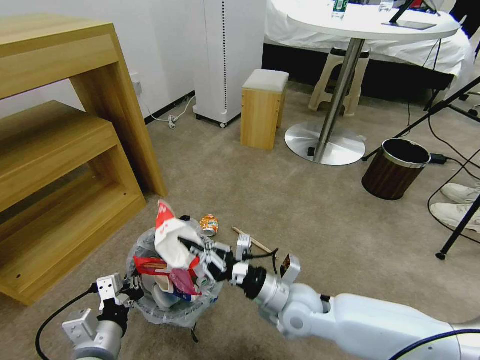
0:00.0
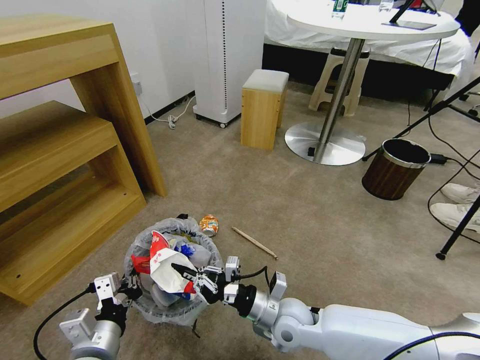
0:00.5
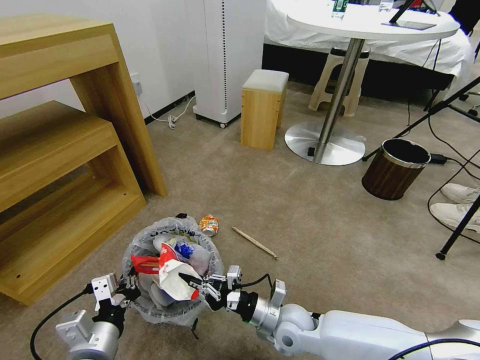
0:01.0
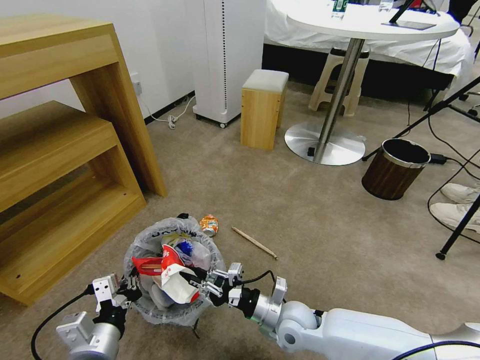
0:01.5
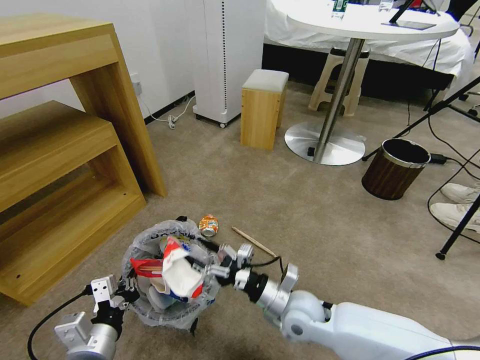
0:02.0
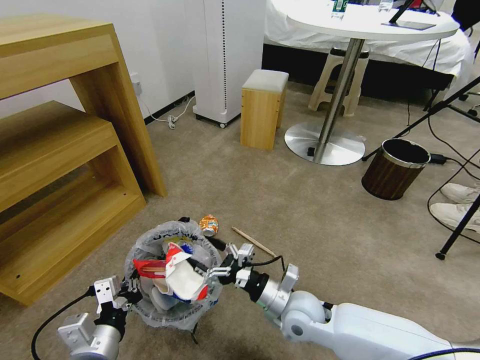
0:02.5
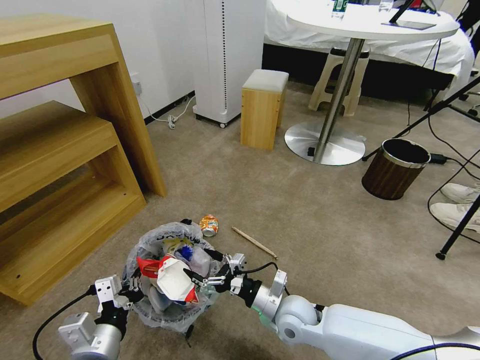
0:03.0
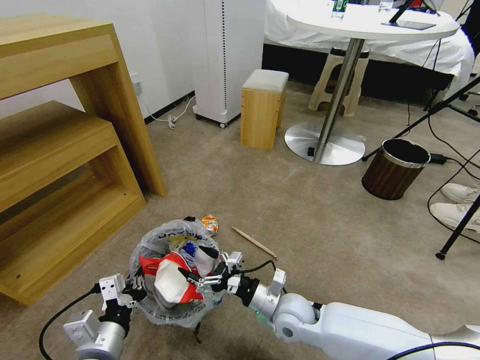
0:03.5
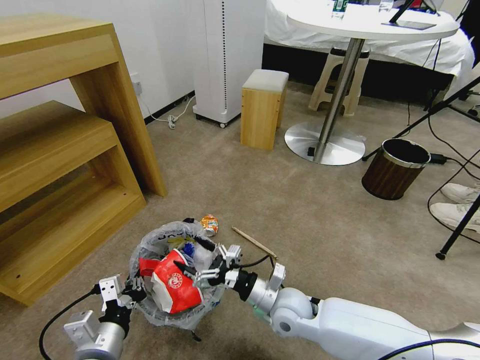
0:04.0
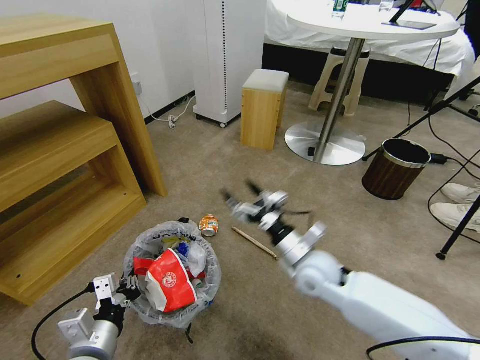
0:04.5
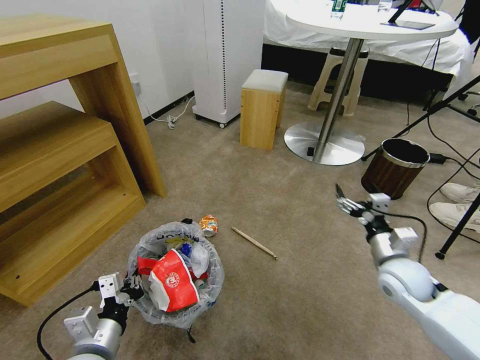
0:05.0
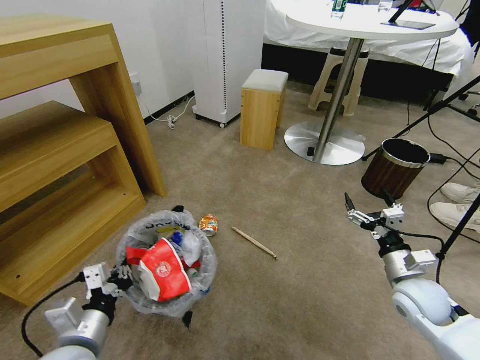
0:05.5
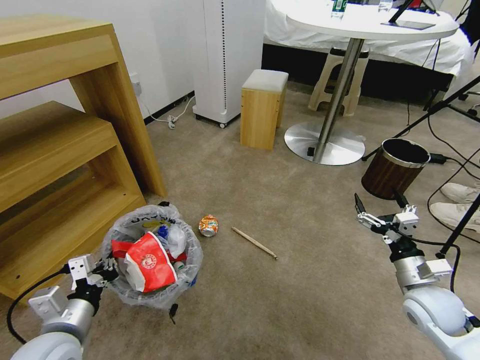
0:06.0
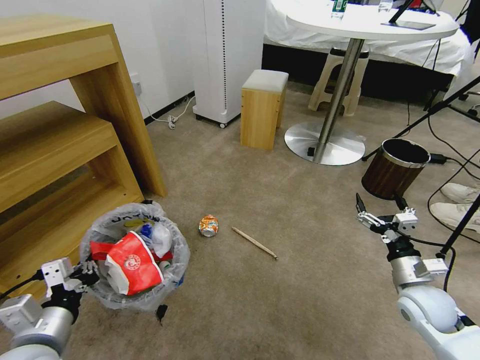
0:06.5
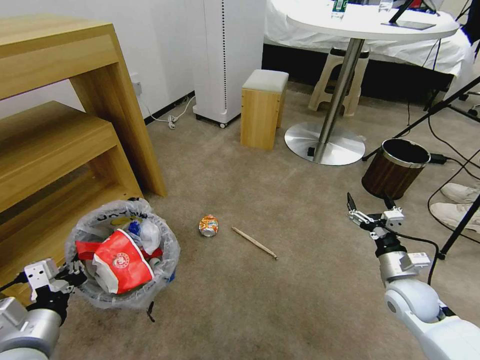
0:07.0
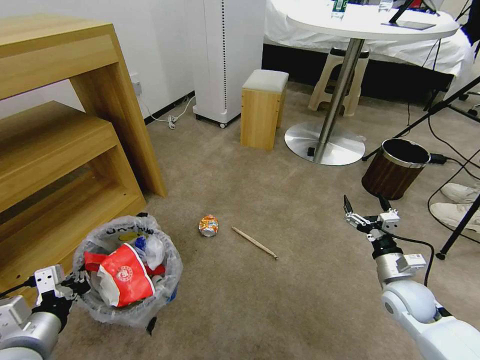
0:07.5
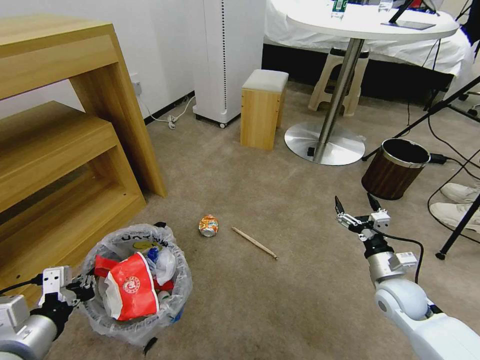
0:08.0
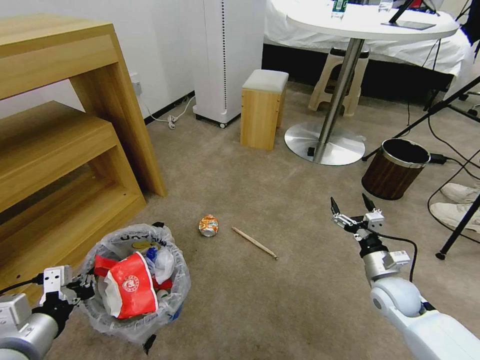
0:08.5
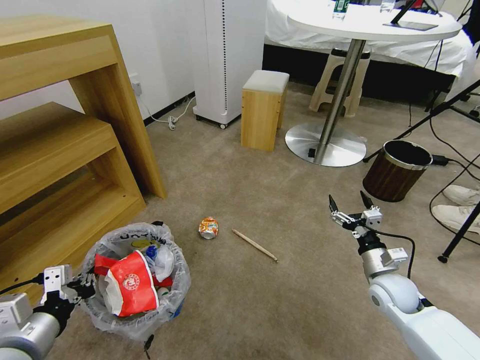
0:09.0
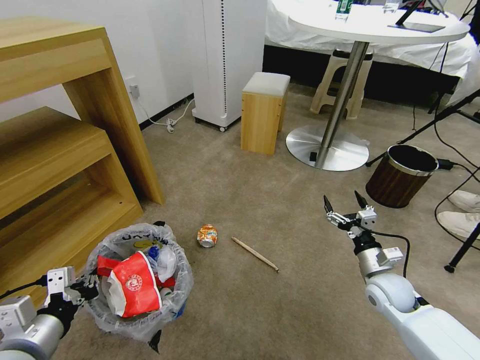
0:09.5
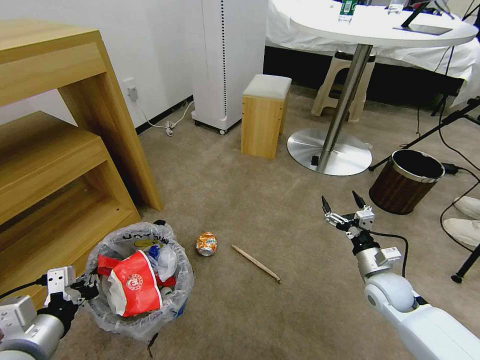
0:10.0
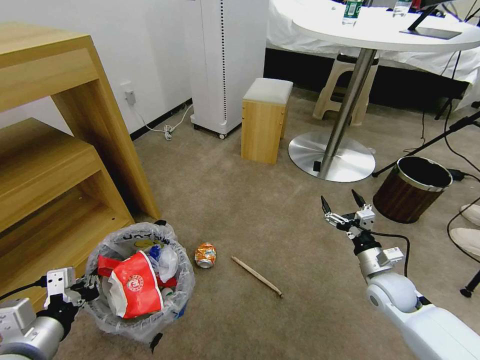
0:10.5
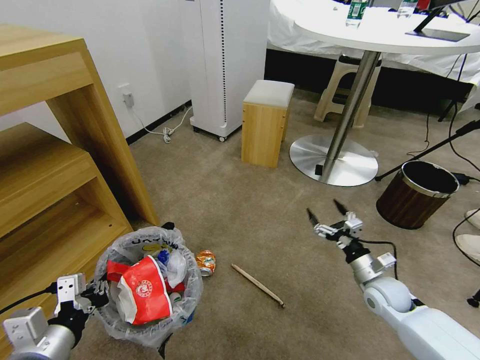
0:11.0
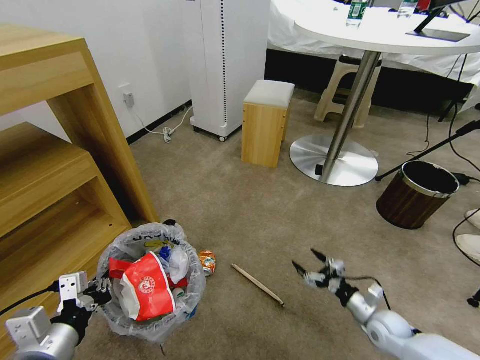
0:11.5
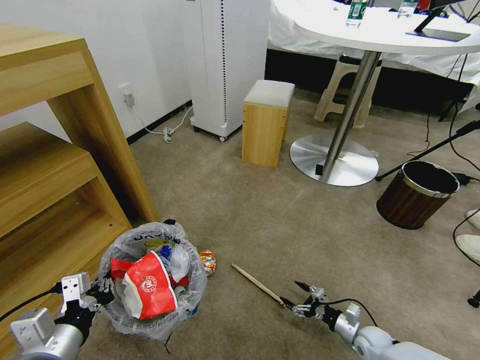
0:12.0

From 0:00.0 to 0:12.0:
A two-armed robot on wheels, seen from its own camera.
Task of the whole recording: Pick up the trash bin and place the garbage on the floor into it.
From 0:00.0 to 0:02.0: The right gripper opens.
From 0:02.0 to 0:04.0: The grippers stay close to where they were, moving slightly.
From 0:04.0 to 0:06.0: The right gripper heads to the right, covering approximately 30 cm. Meanwhile the left gripper is displaced to the left by some 5 cm.
From 0:06.0 to 0:08.0: The left gripper travels upward by approximately 5 cm; the right gripper changes place by roughly 5 cm.
From 0:10.0 to 0:12.0: The right gripper travels downward by about 20 cm.

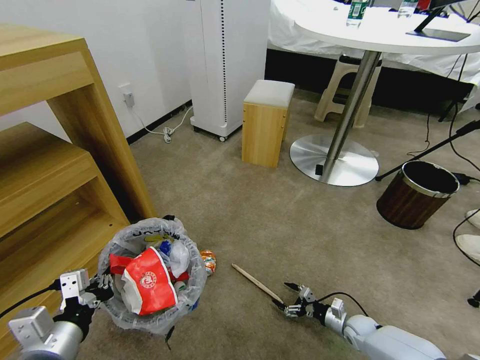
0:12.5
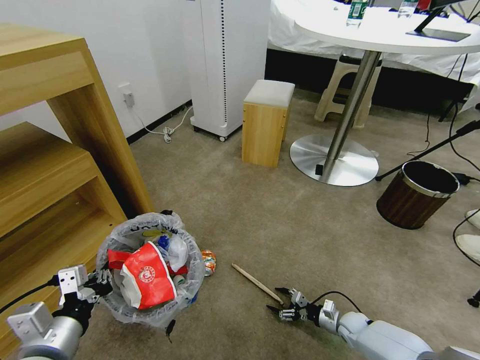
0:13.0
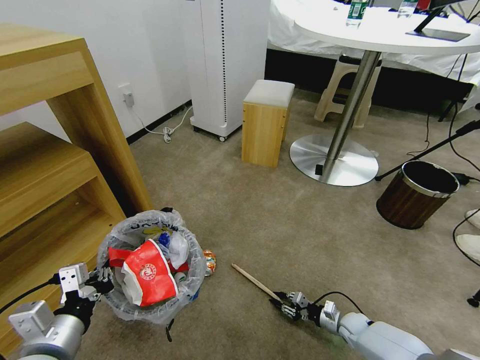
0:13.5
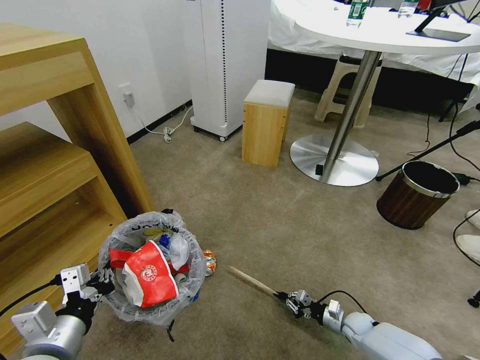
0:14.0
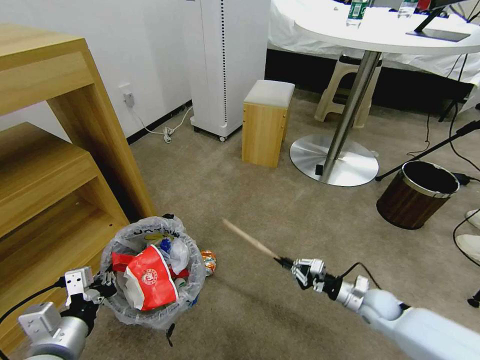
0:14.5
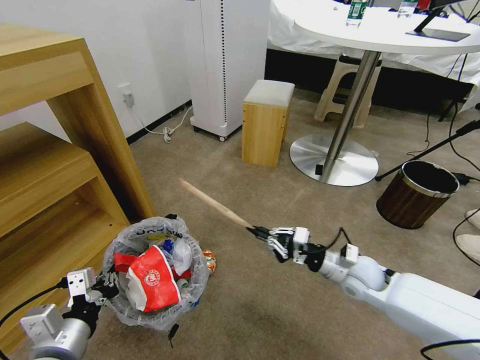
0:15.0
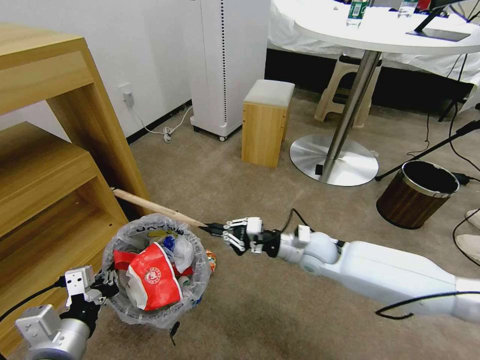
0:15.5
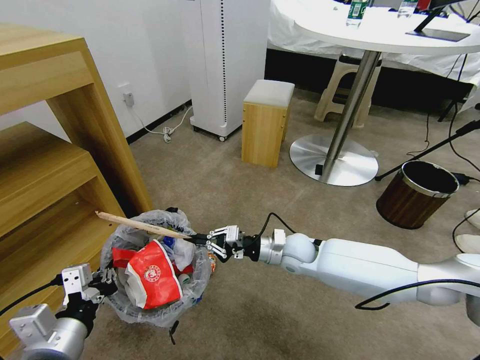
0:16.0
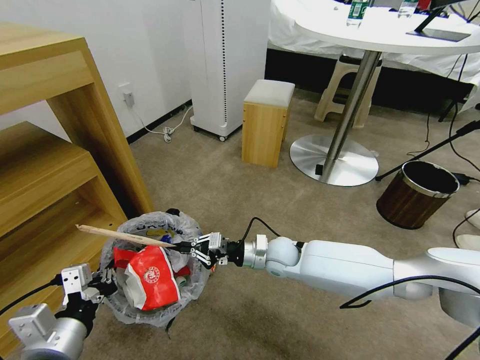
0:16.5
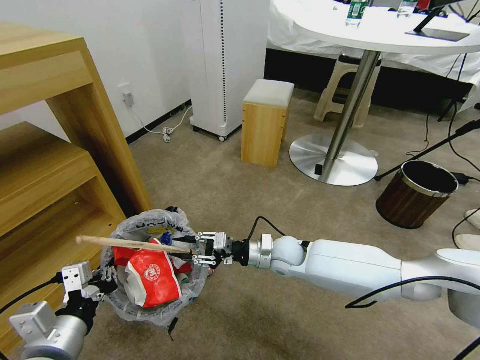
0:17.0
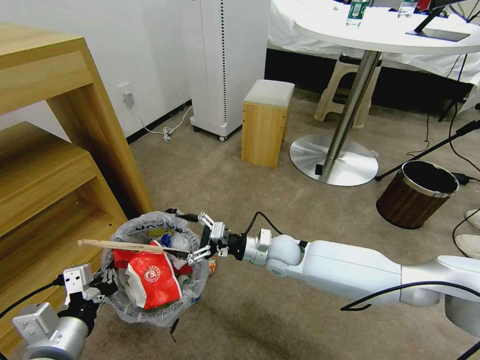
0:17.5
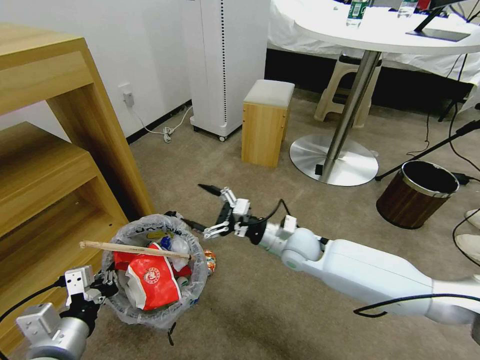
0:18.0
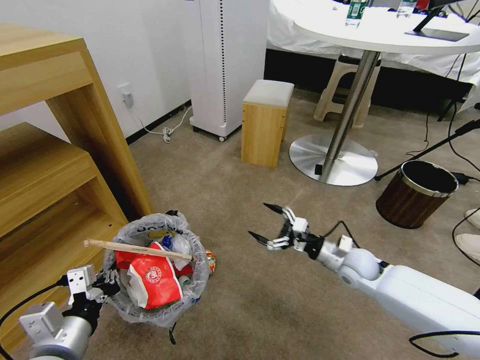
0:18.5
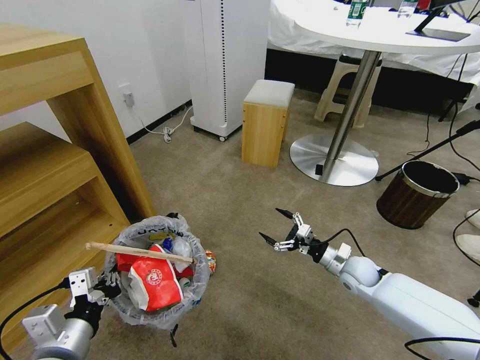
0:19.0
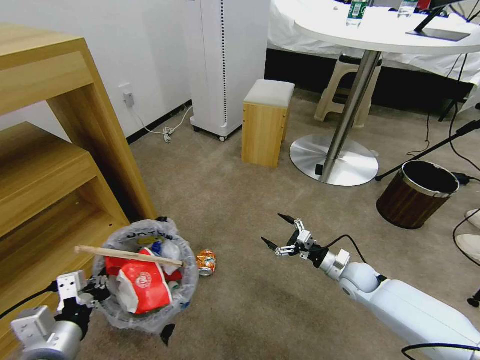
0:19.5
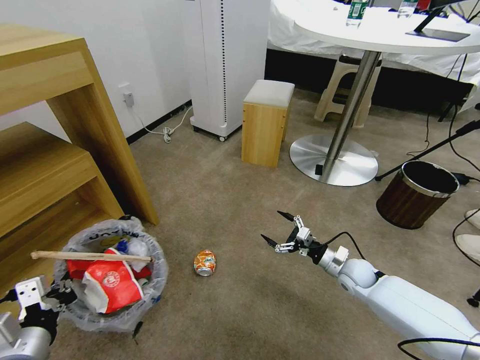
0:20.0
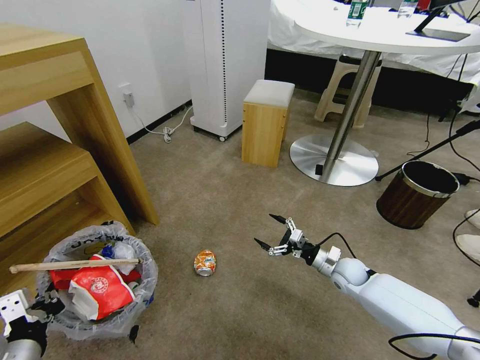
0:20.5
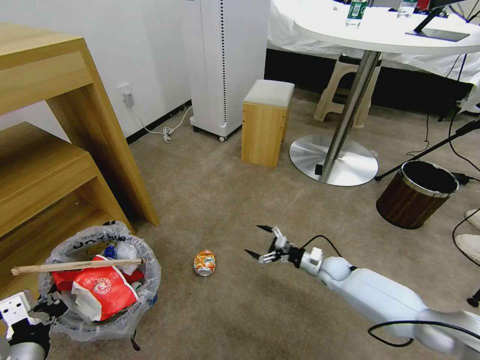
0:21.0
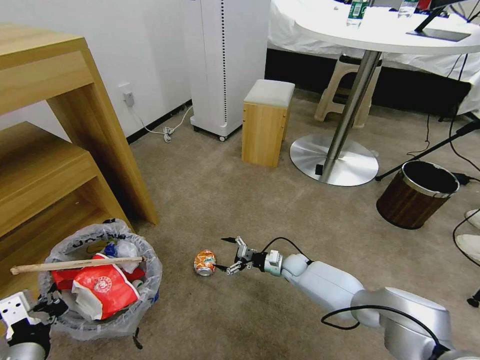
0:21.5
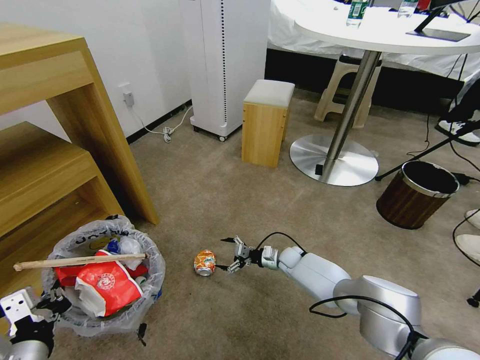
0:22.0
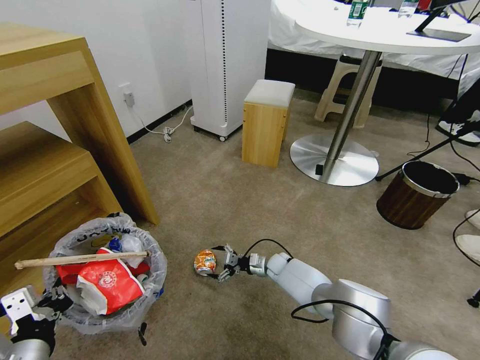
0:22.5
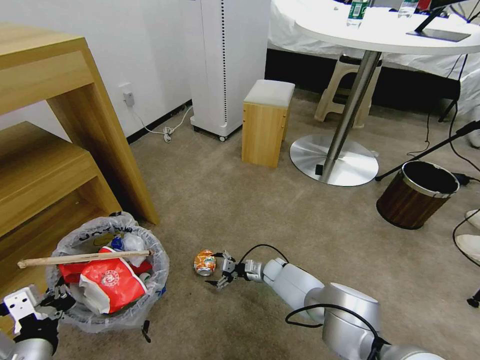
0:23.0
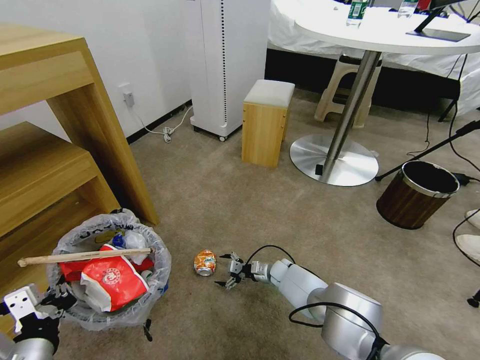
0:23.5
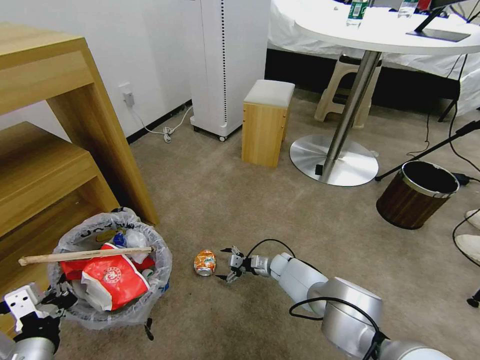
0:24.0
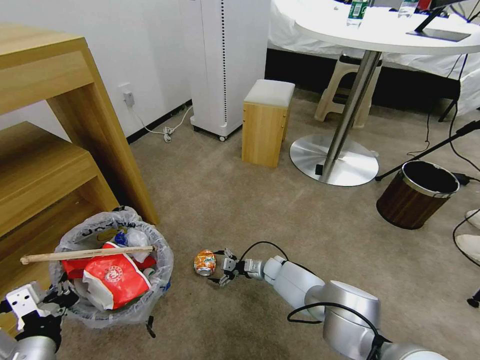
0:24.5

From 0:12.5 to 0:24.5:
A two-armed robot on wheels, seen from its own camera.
Task of the whole recording: Pick up the trash bin and place the garbage on the floor into it.
From 0:12.5 to 0:14.5: The right gripper heads upward, covering about 15 cm, and closes up.
From 0:14.5 to 0:16.5: The right gripper moves to the left, approximately 25 cm.
From 0:16.5 to 0:18.5: The right gripper goes about 20 cm to the right, and opens up.
From 0:18.5 to 0:20.5: The right gripper is displaced downward by roughly 10 cm.
From 0:20.5 to 0:22.5: The right gripper is displaced to the left, downward and forward by approximately 20 cm.
From 0:22.5 to 0:24.5: The grippers make only small movements.

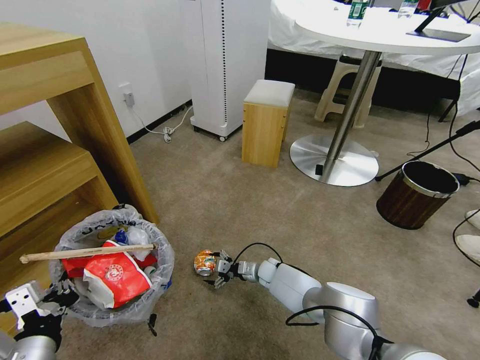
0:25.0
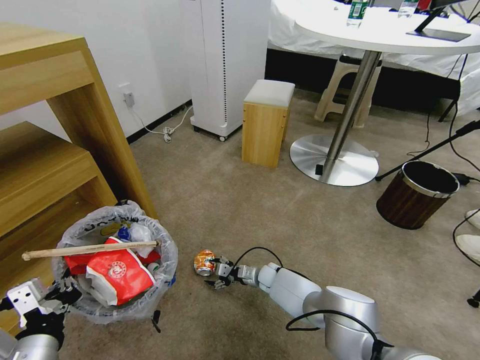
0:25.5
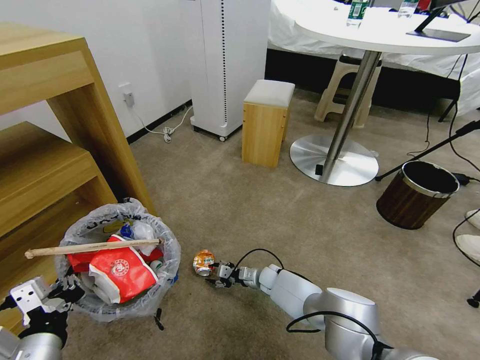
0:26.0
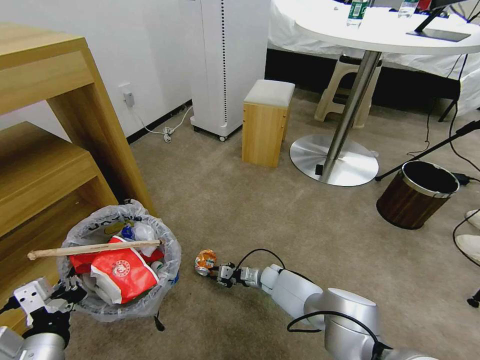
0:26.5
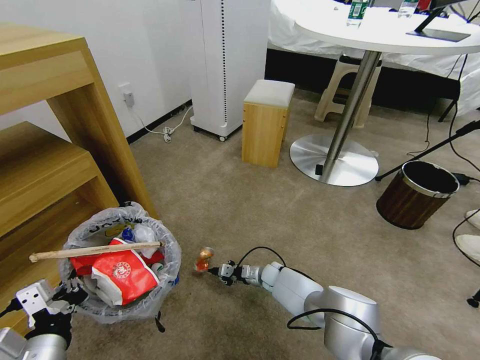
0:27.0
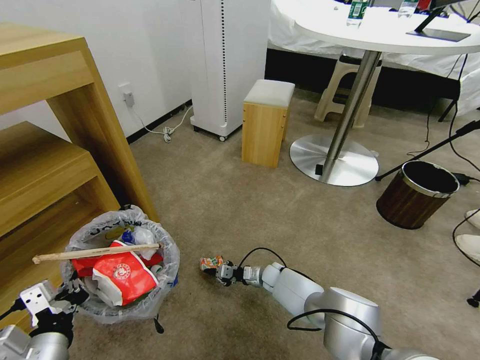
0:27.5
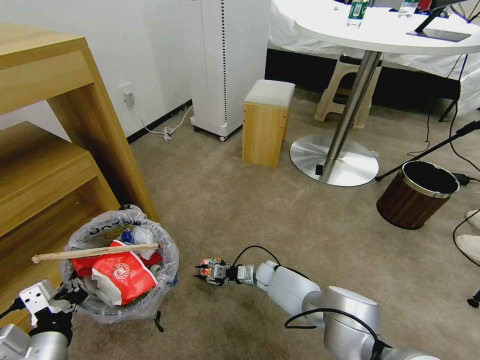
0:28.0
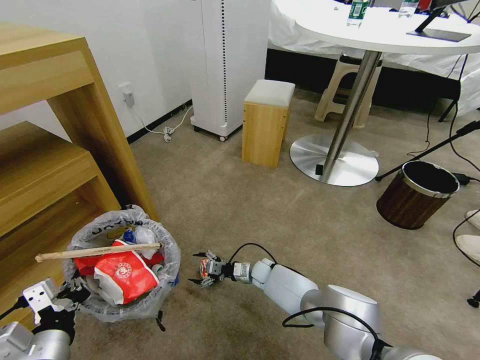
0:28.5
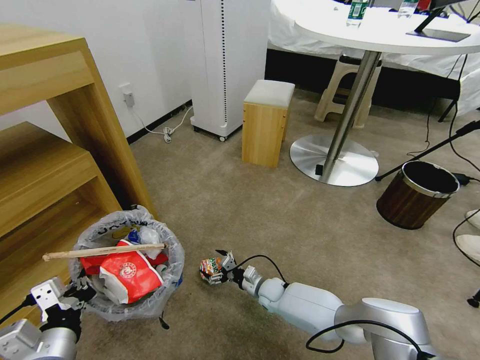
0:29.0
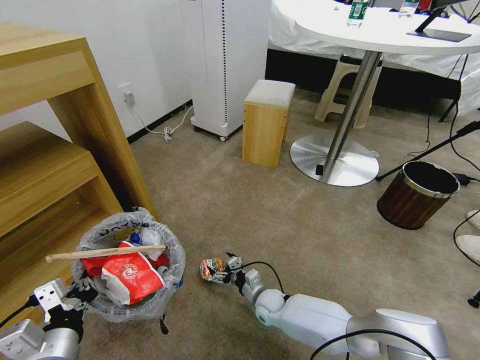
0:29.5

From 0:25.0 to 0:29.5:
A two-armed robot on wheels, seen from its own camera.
Task of the whole recording: Pick up the trash bin and place the garbage on the floor into it.
From 0:25.0 to 0:27.0: The right gripper closes its fingers.
From 0:27.0 to 0:29.5: The right gripper moves backward, some 10 cm, and opens up.
